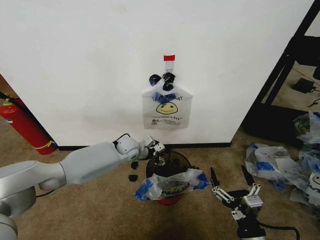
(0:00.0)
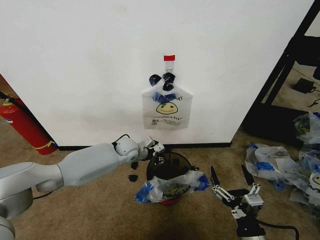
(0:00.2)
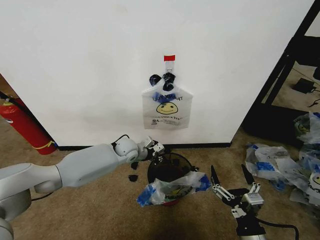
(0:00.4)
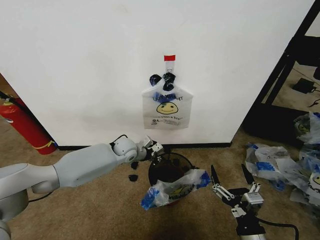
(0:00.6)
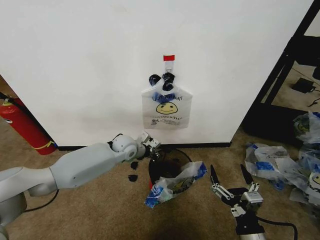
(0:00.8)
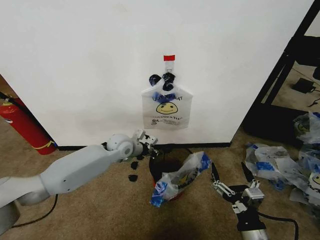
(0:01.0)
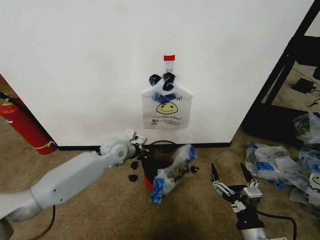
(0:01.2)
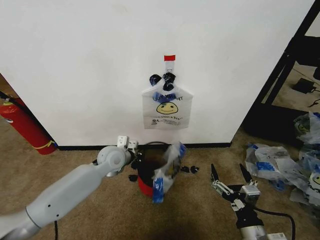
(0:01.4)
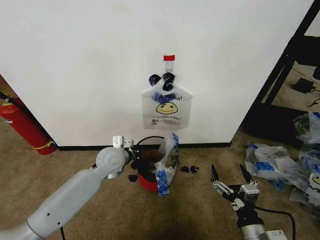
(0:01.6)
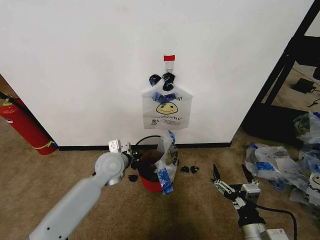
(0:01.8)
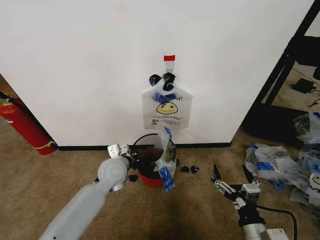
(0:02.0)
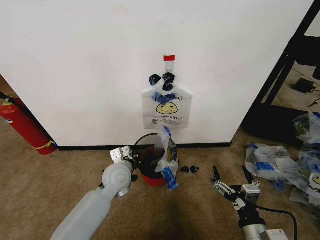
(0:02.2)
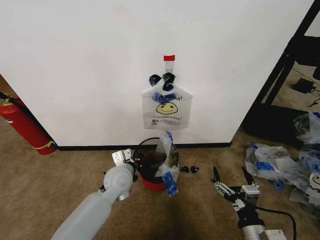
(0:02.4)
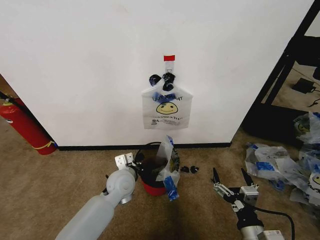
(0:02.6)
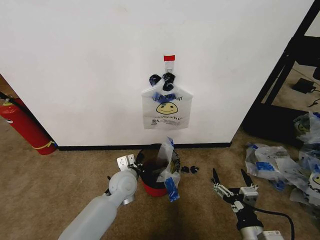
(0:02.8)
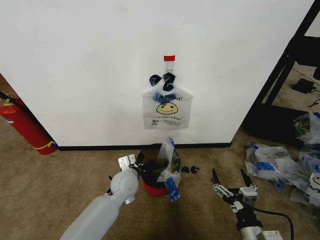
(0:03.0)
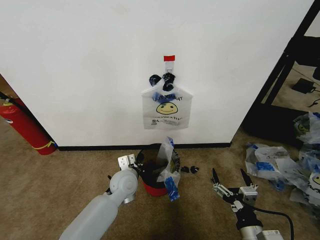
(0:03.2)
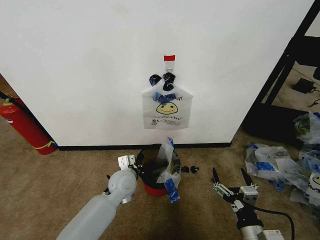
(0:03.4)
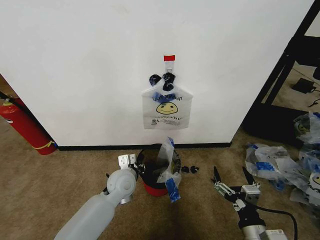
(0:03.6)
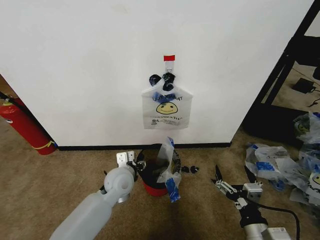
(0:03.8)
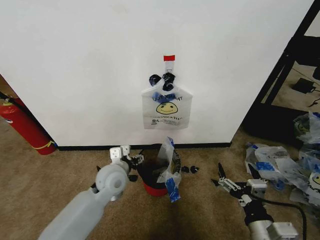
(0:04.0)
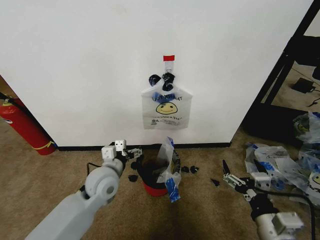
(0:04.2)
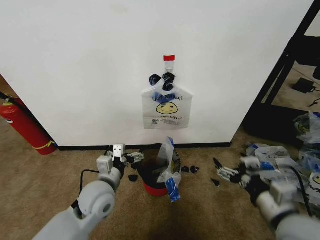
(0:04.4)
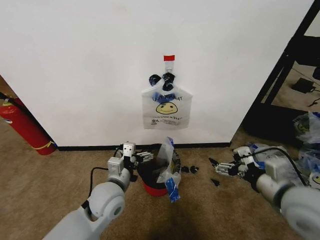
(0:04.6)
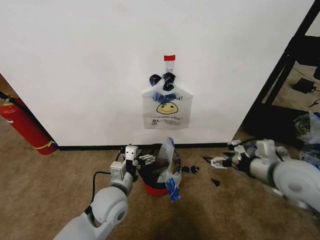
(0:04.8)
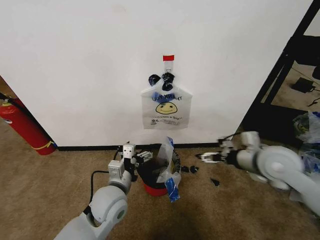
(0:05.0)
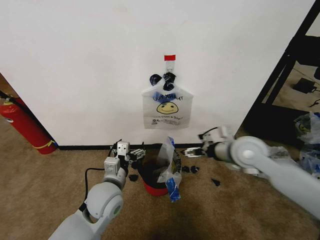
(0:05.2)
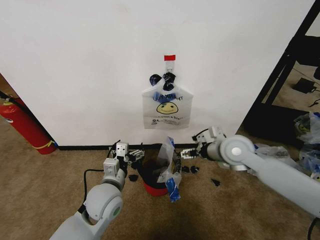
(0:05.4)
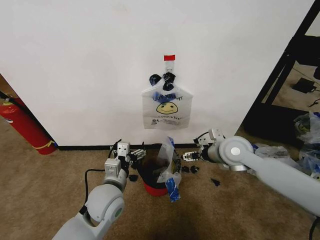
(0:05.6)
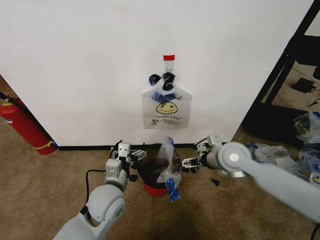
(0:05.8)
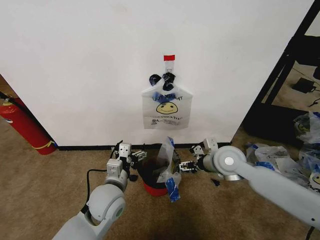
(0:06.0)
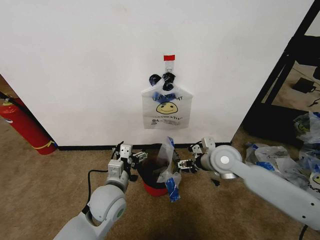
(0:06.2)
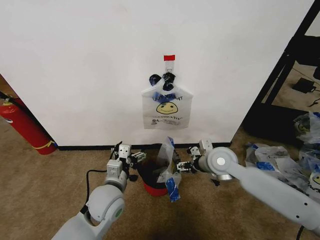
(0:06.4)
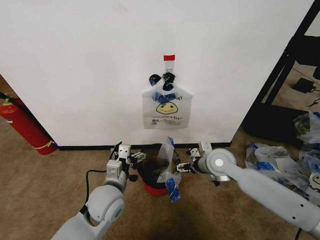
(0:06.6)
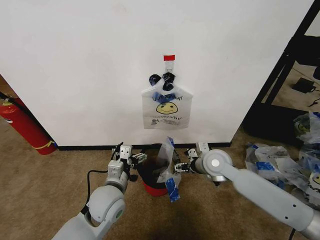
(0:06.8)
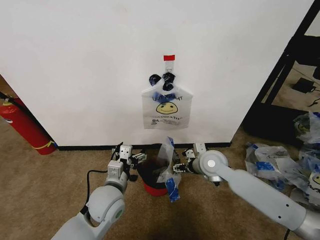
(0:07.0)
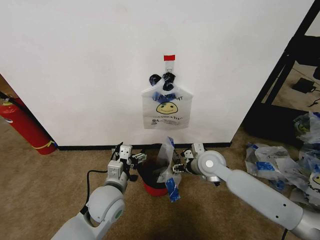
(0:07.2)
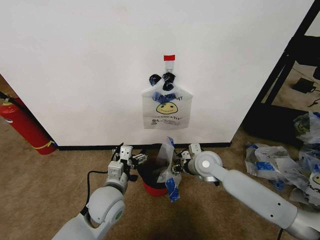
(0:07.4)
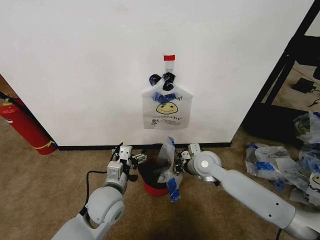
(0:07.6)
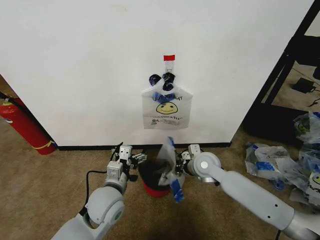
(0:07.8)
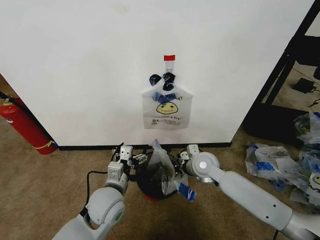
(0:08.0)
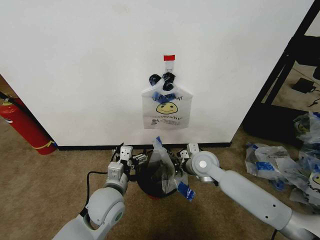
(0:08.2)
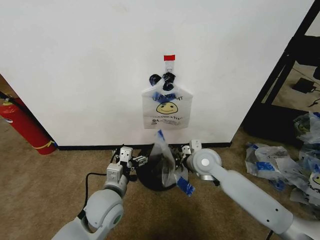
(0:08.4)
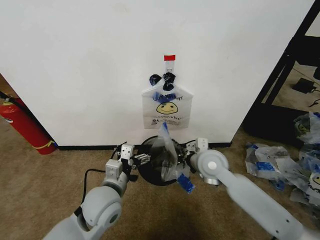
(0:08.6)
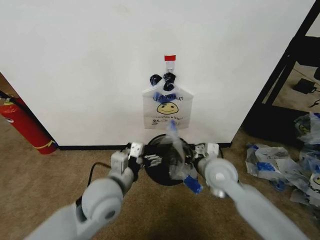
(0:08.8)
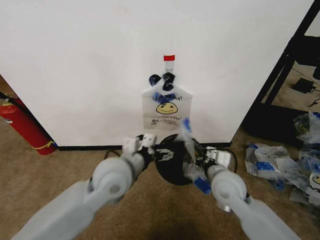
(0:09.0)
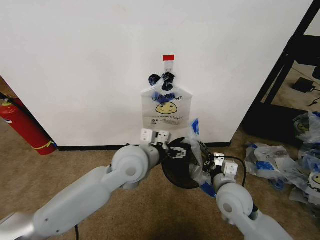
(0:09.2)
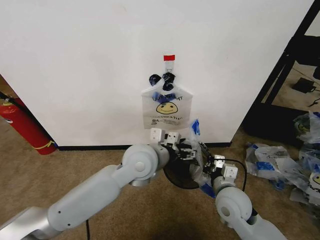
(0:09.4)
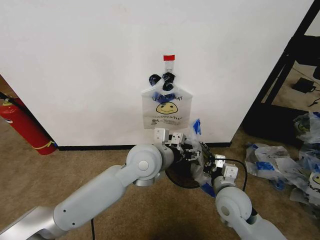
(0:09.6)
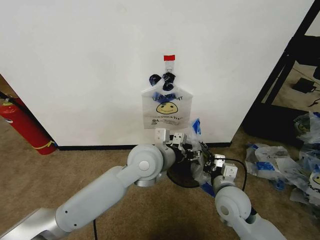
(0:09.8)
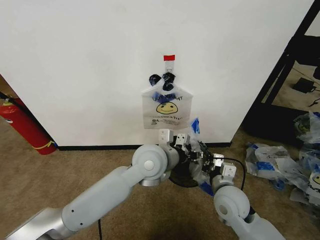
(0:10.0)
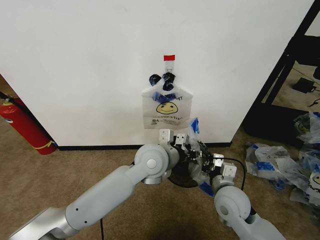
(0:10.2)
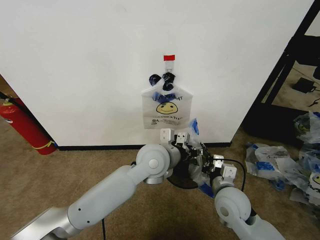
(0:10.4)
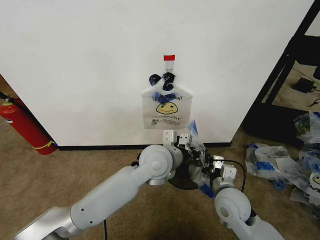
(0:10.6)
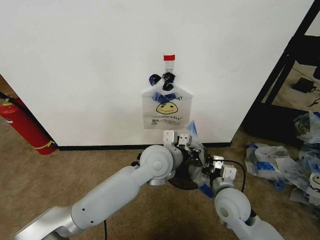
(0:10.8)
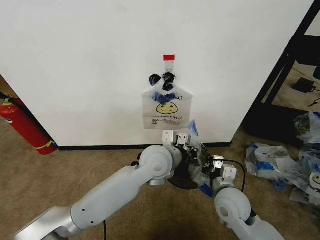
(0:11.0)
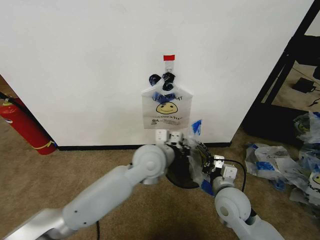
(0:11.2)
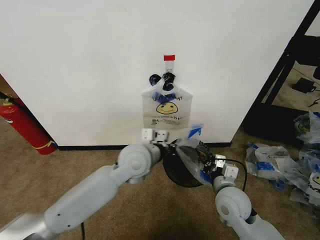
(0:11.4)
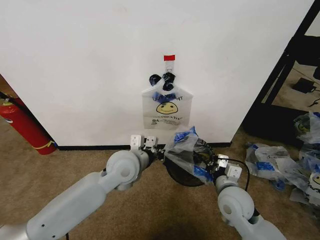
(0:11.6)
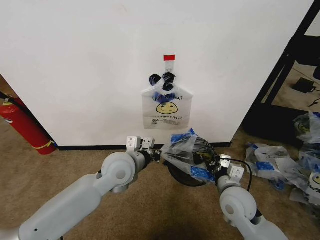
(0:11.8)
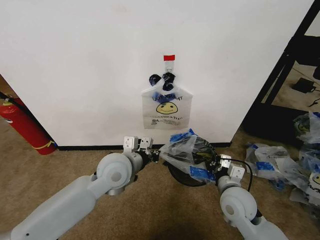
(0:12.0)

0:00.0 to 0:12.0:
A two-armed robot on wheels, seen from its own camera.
Task of the whole recording: Pick up the garbage bag from the wall and place it over the trash bin.
0:00.0 to 0:01.6: The left gripper is displaced backward and upward by approximately 10 cm, and closes its fingers.
0:01.6 to 0:03.0: The left gripper shifts some 10 cm downward, backward and to the right.
0:03.0 to 0:04.4: The left gripper goes approximately 10 cm backward, upward and to the left, and opens up, while the right gripper heads upward, covering approximately 15 cm.
0:04.4 to 0:06.0: The right gripper moves forward, about 20 cm.
0:06.0 to 0:07.6: The right gripper is displaced downward by about 5 cm, and closes its fingers.
0:07.6 to 0:09.0: The right gripper heads backward, covering some 10 cm. Meanwhile the left gripper heads upward, covering roughly 10 cm.
0:09.0 to 0:10.4: The left gripper moves to the right and forward, roughly 10 cm, and closes its fingers. Meanwhile the right gripper ends up about 5 cm from where it was.
0:10.4 to 0:12.0: The left gripper is displaced to the left by approximately 10 cm, and closes up.

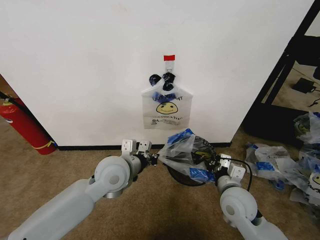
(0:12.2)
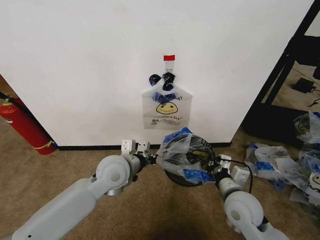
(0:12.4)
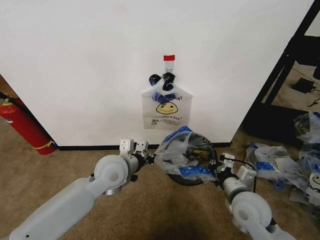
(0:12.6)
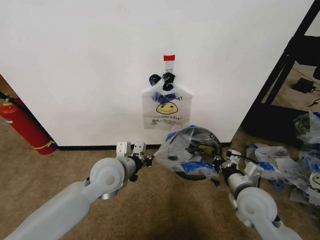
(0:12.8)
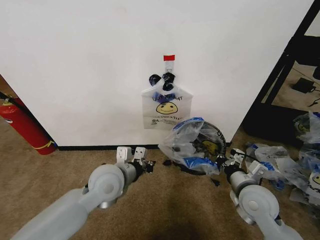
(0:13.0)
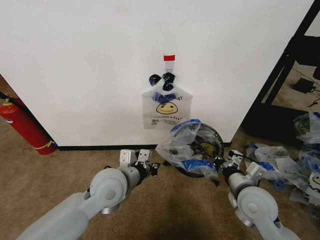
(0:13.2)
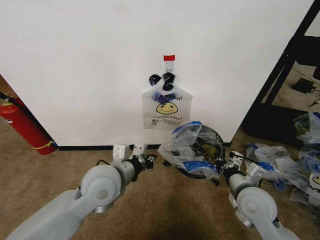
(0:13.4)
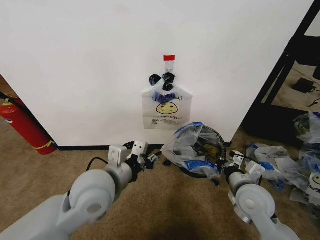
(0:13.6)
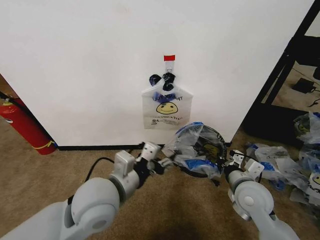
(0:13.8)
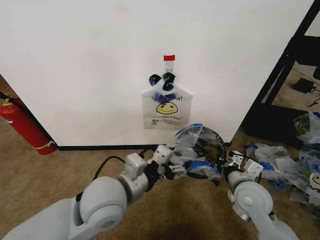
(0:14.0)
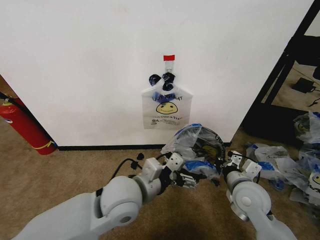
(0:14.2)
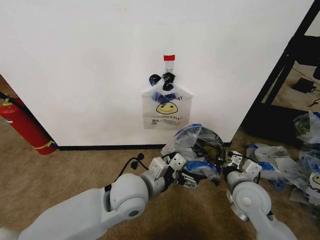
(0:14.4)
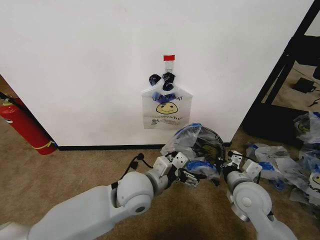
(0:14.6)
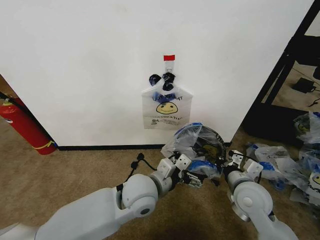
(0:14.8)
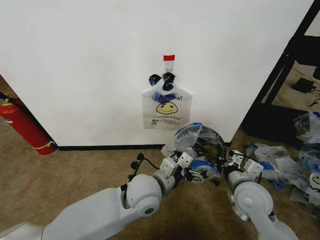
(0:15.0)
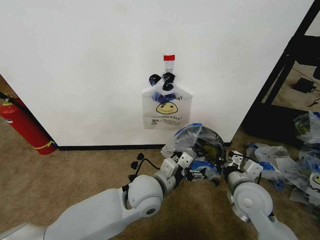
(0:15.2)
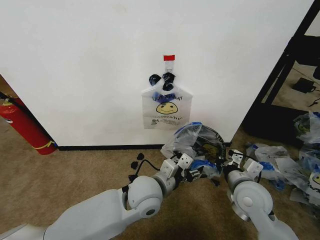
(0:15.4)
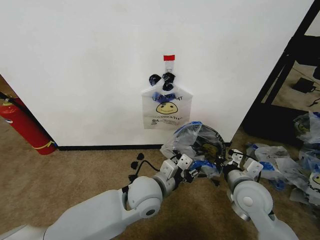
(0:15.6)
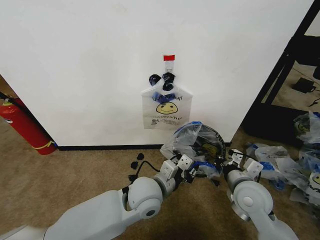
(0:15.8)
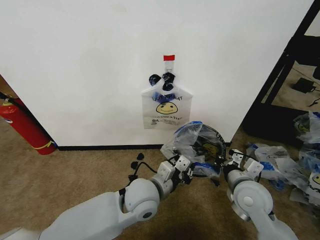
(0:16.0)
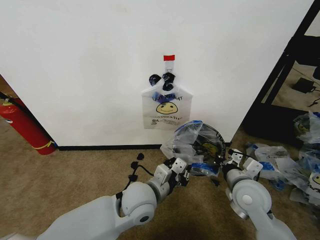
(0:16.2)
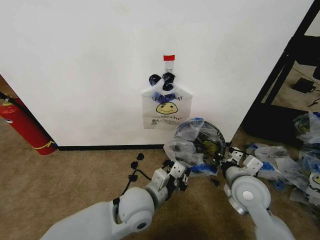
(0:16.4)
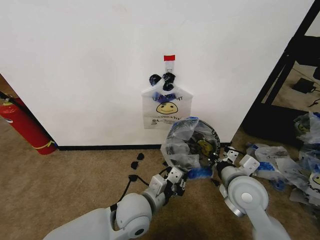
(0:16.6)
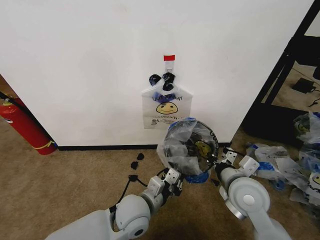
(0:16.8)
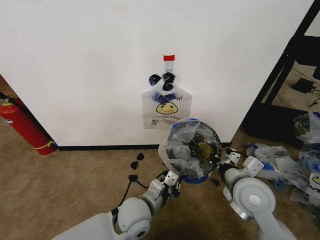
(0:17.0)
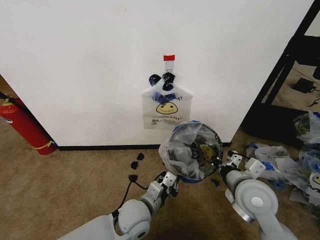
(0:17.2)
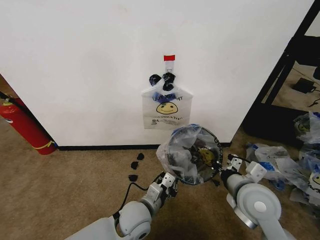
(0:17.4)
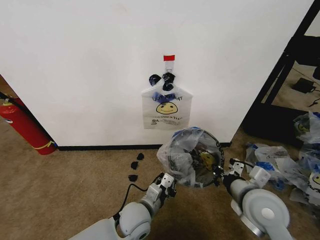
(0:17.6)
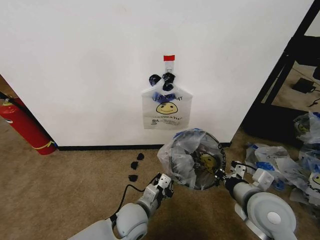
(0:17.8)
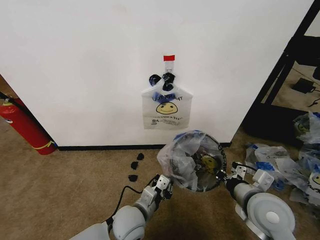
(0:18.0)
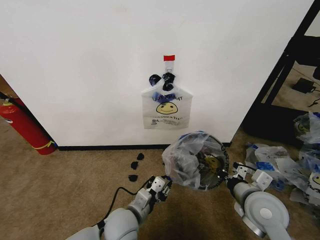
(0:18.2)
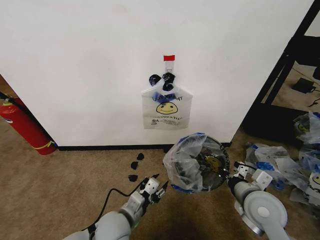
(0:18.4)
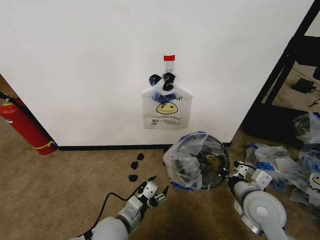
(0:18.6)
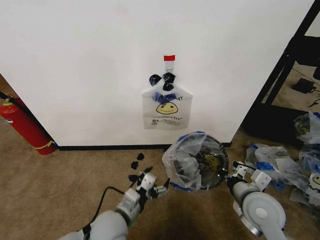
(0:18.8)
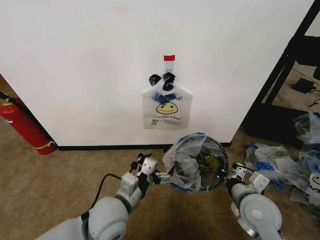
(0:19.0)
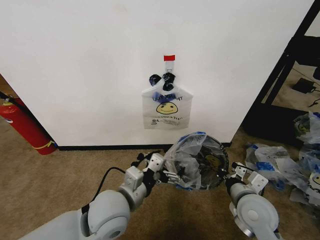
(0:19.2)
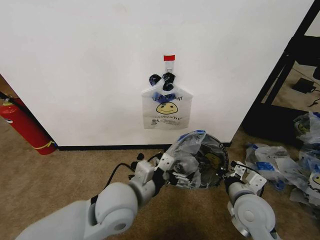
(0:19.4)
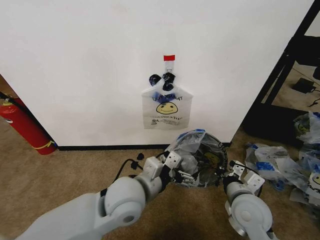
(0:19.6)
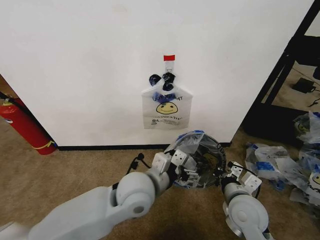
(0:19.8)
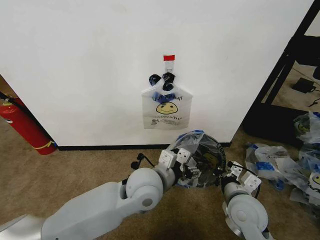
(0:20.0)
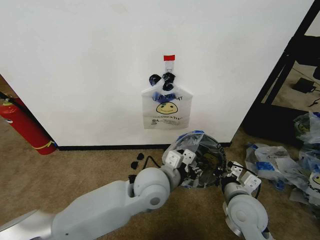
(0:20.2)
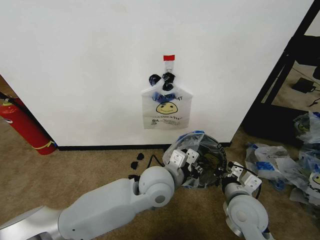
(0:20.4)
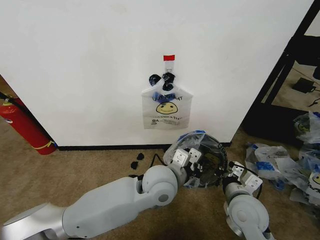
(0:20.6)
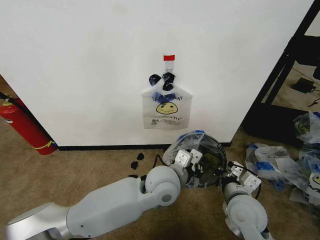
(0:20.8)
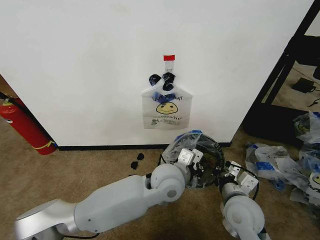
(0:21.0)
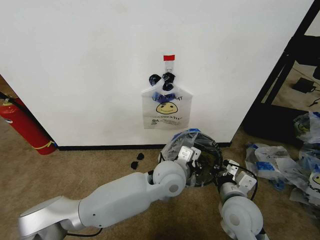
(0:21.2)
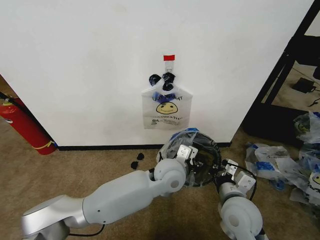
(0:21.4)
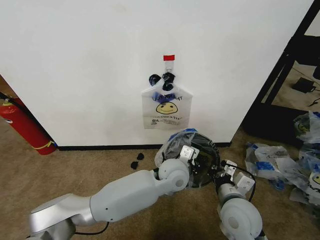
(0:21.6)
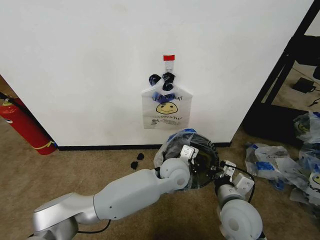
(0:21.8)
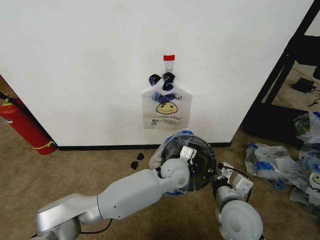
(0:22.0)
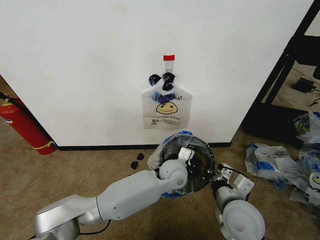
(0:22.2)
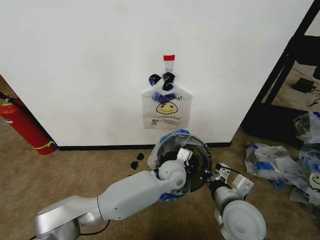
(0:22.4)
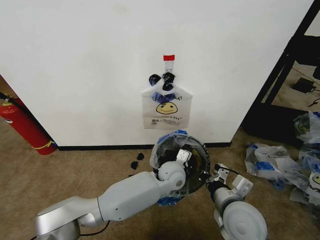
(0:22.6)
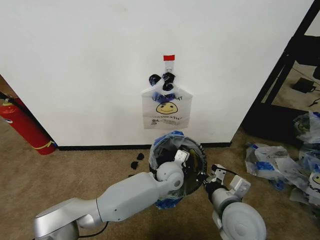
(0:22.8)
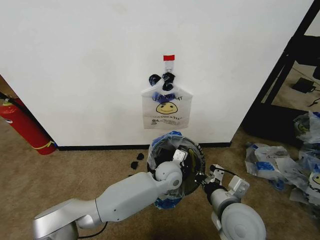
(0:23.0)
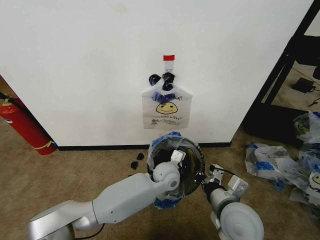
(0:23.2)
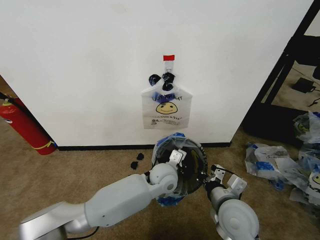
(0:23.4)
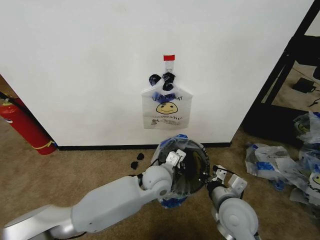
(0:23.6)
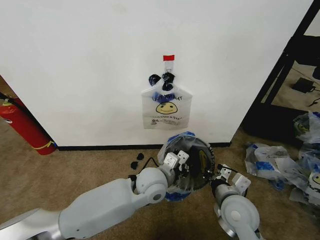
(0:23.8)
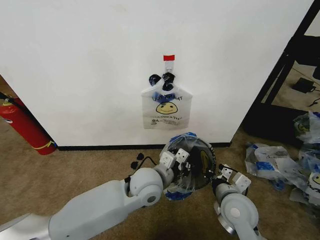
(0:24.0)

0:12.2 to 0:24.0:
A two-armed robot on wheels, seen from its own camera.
Task of the whole recording: Pick up the garbage bag from the wall and place it over the trash bin.
0:12.2 to 0:13.6: The left gripper goes about 5 cm backward.
0:13.6 to 0:15.2: The left gripper heads to the right and downward, covering about 15 cm, and opens its fingers.
0:15.2 to 0:16.6: The left gripper shifts by some 5 cm, and closes its fingers.
0:16.6 to 0:18.2: The right gripper moves some 5 cm; the left gripper goes roughly 5 cm downward.
0:18.2 to 0:19.6: The left gripper travels upward by approximately 15 cm, and opens its fingers.
0:19.6 to 0:21.0: The left gripper shifts about 10 cm to the right and forward, and closes.
0:21.0 to 0:22.6: The left gripper goes some 10 cm downward and forward.
0:22.6 to 0:24.0: The left gripper moves to the left, upward and backward, about 15 cm. Meanwhile the right gripper moves roughly 5 cm.
